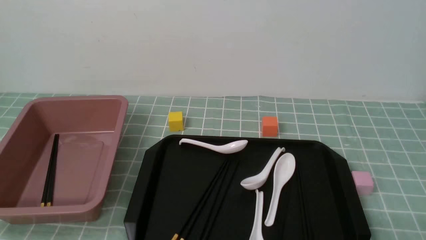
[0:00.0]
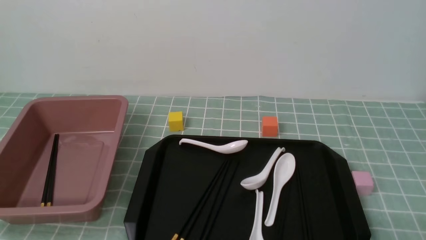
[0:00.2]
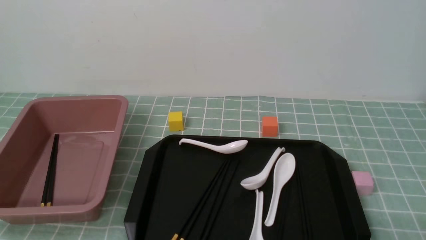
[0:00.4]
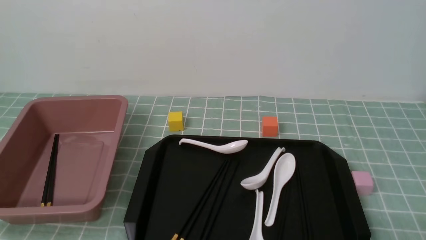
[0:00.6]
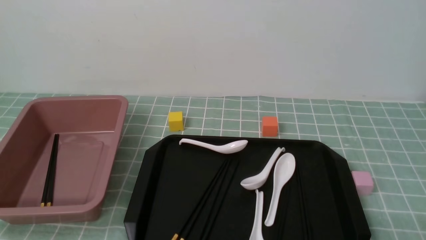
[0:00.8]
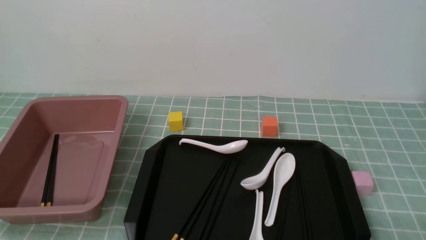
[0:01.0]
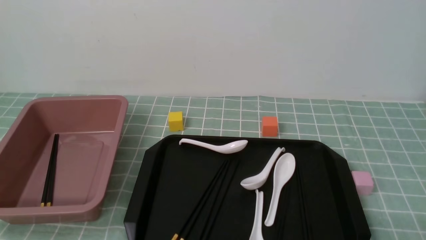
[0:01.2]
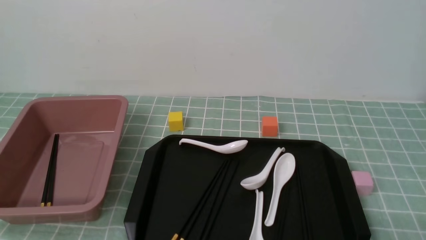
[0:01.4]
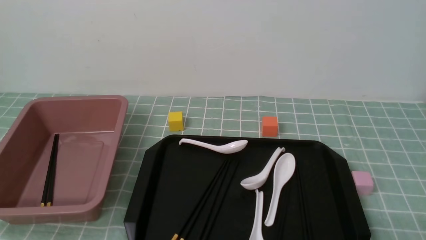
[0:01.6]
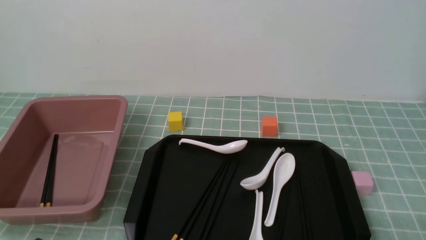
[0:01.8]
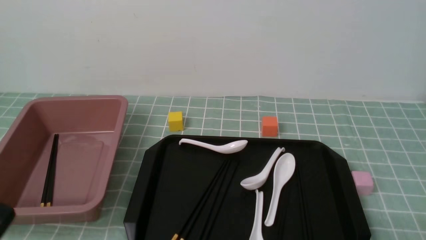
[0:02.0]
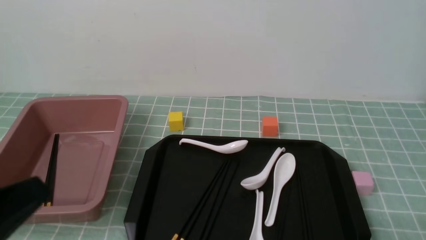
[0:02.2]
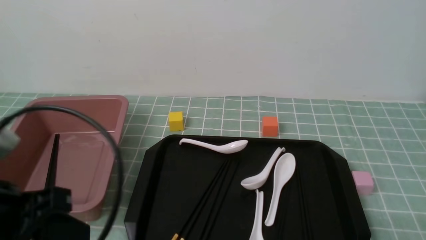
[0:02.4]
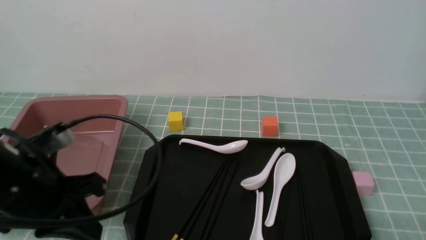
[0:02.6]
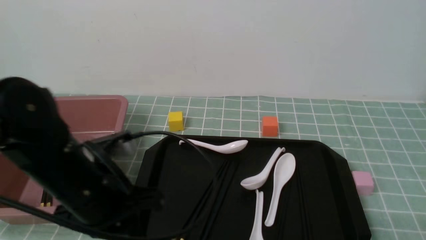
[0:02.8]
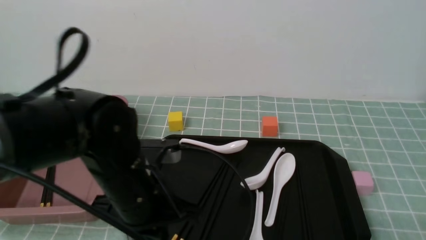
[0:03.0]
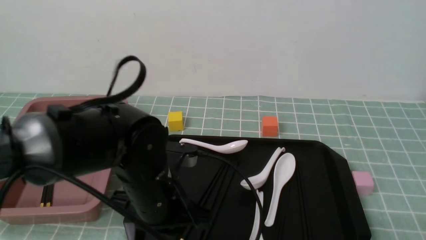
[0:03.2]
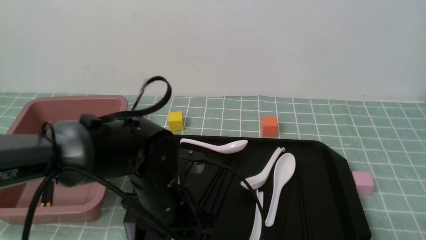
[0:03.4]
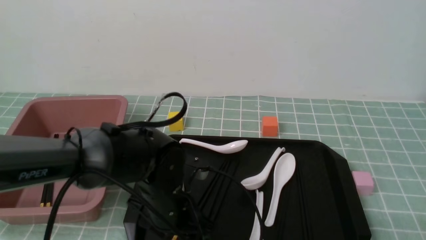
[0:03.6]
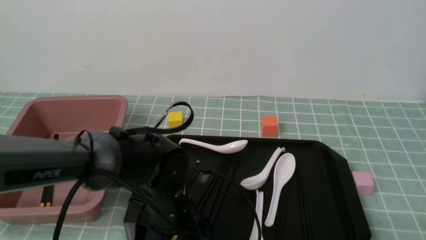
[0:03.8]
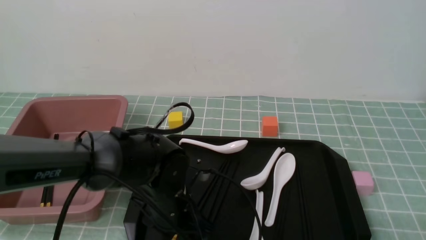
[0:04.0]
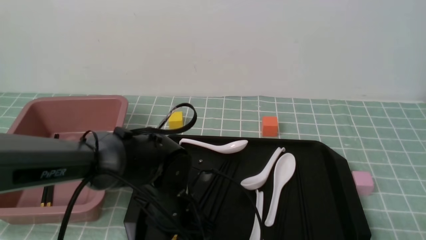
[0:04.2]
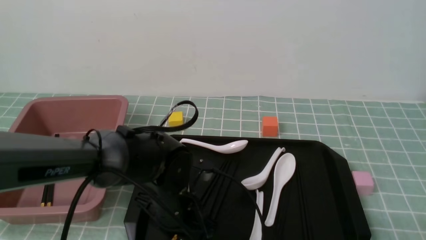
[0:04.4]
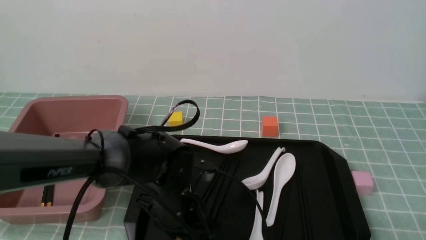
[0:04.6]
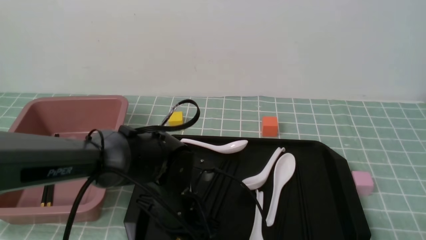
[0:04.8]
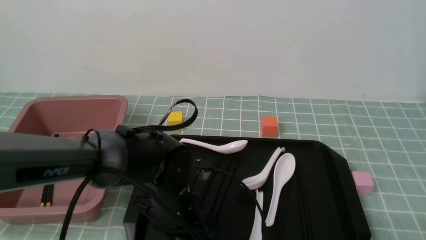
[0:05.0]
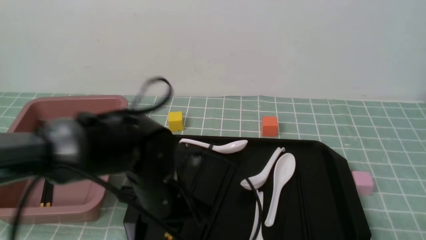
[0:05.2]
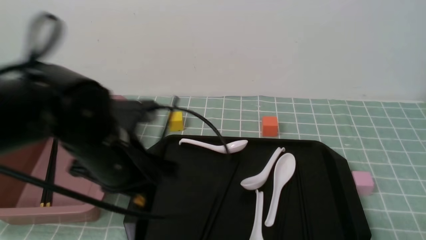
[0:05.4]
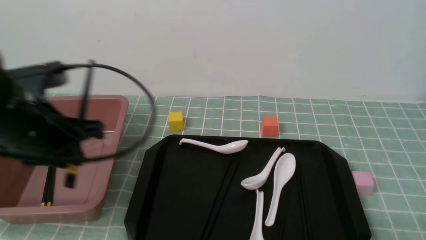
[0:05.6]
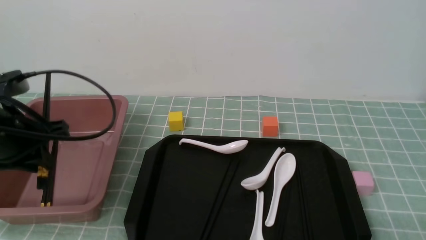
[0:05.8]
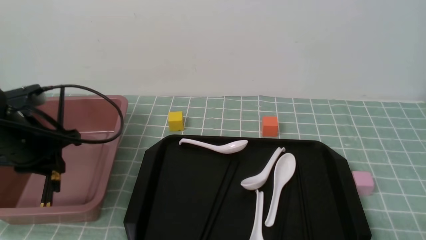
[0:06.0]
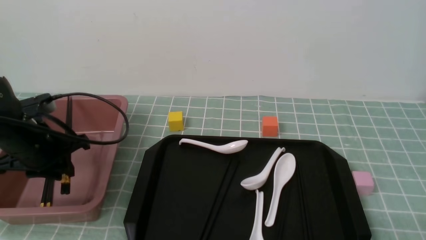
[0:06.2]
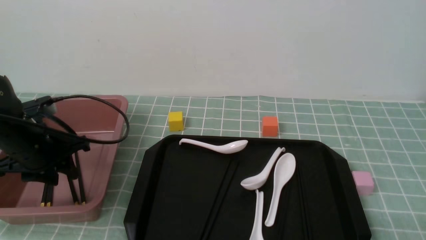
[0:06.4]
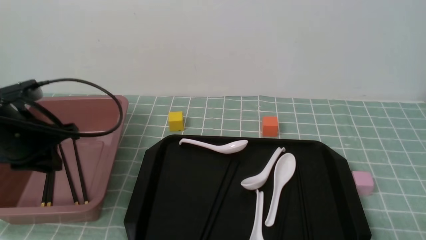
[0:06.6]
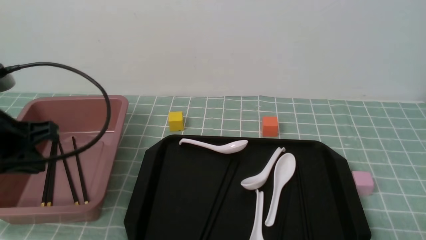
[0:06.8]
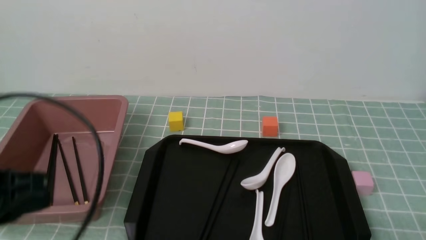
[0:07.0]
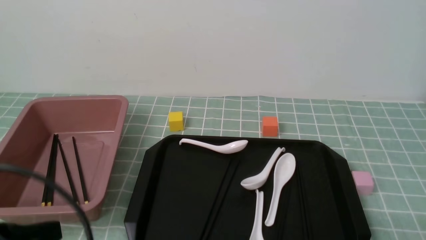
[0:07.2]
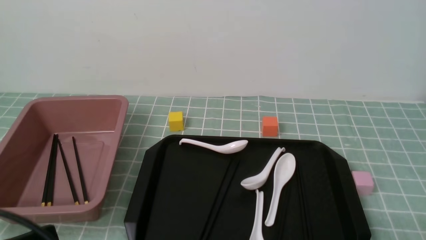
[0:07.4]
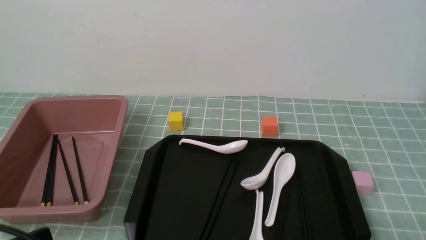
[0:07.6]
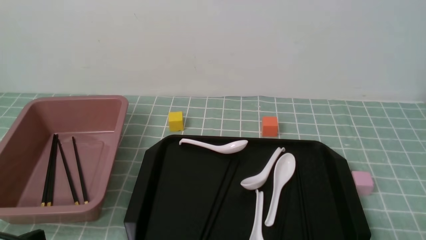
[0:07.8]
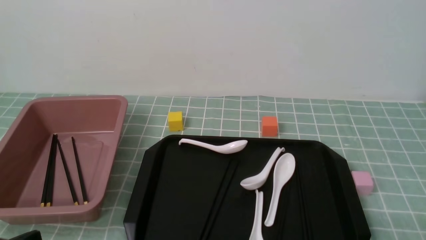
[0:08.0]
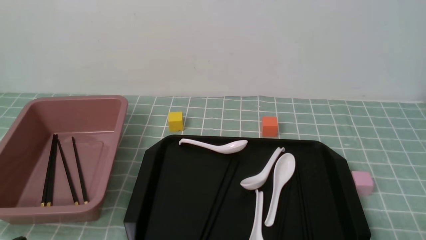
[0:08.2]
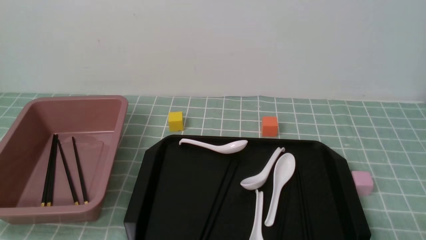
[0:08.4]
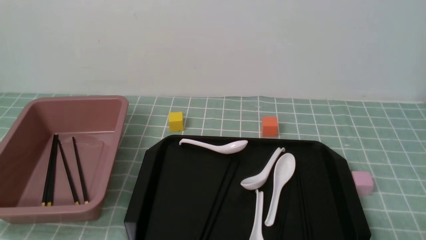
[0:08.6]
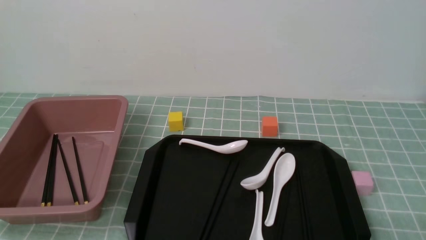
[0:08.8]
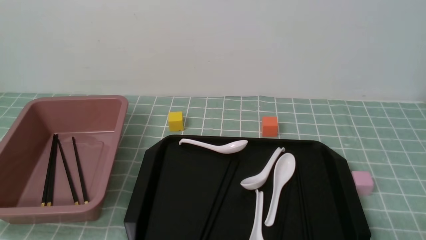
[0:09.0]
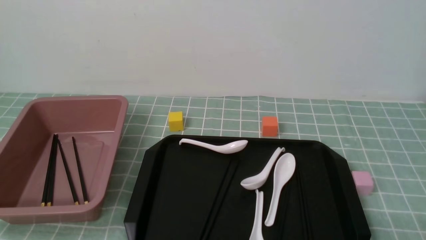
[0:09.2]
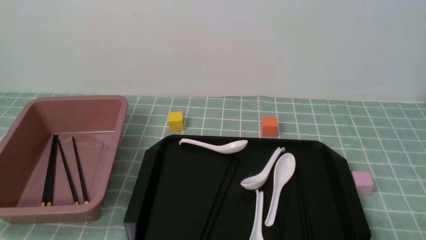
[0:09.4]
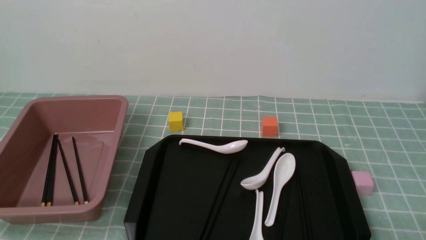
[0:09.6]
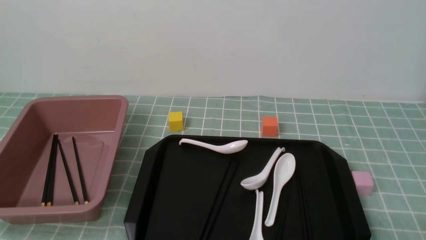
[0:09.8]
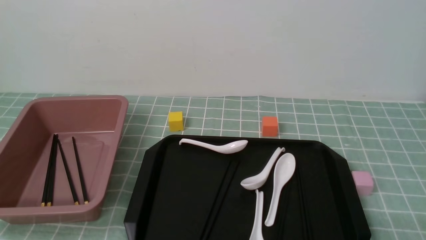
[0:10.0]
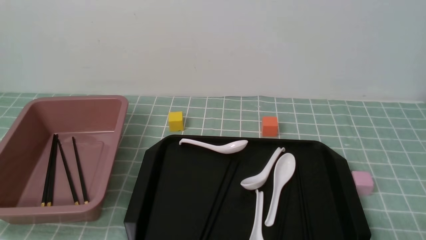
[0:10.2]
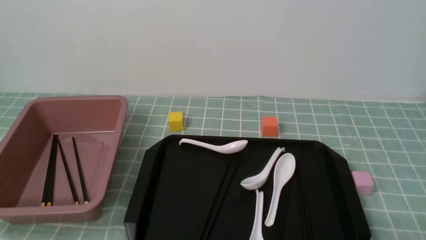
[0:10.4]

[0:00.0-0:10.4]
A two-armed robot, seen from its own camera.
Step, 0:00.0 to 0:05.2: use the left arm to grab a pair of chopsticks.
Step, 0:05.6 to 0:06.6: use the left arm to put the chopsticks into the lunch box.
0:01.4 to 0:03.0: The left gripper goes about 25 cm forward and to the right.
0:03.0 to 0:04.4: The left gripper moves downward, roughly 10 cm, and opens up.
0:04.4 to 0:06.0: The left gripper is displaced to the left and upward by about 25 cm.
0:06.0 to 0:07.4: The left gripper heads backward, covering some 25 cm, and closes its fingers.
0:07.4 to 0:09.0: The left gripper goes roughly 10 cm downward.
0:09.0 to 0:10.4: The two grippers keep their place.
